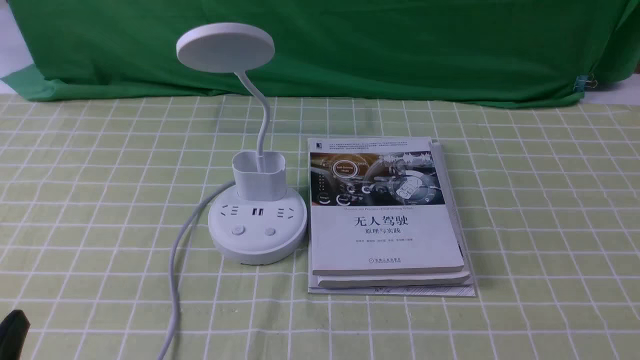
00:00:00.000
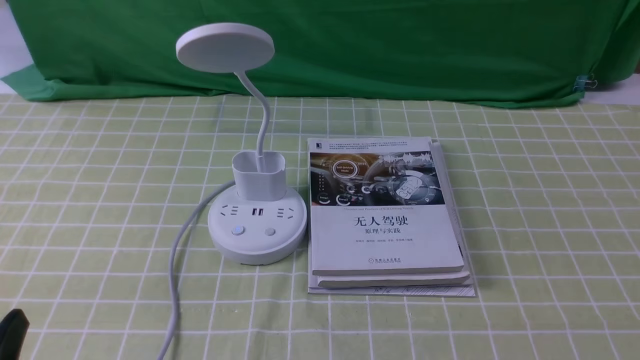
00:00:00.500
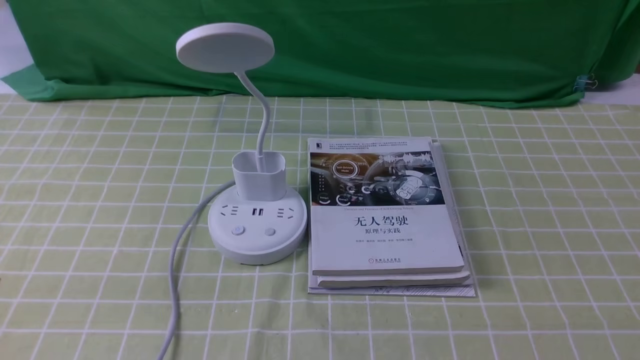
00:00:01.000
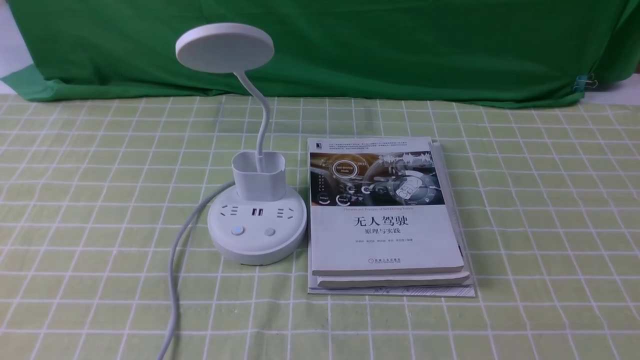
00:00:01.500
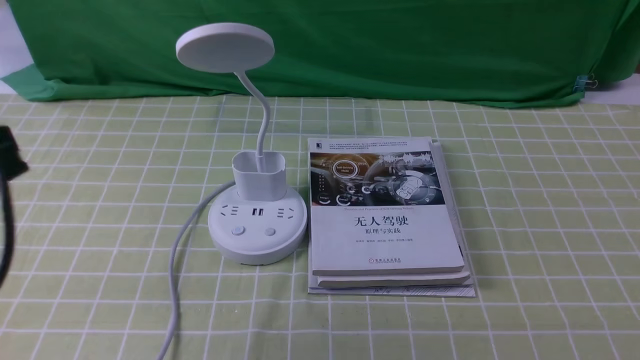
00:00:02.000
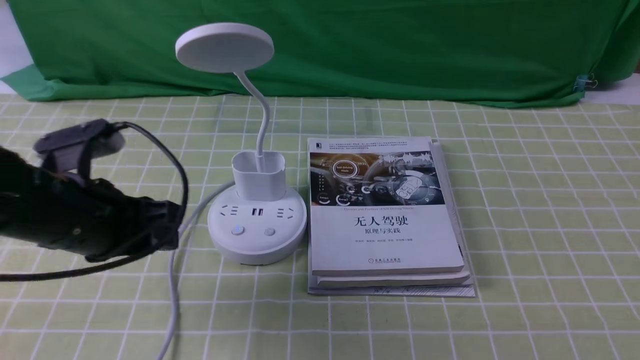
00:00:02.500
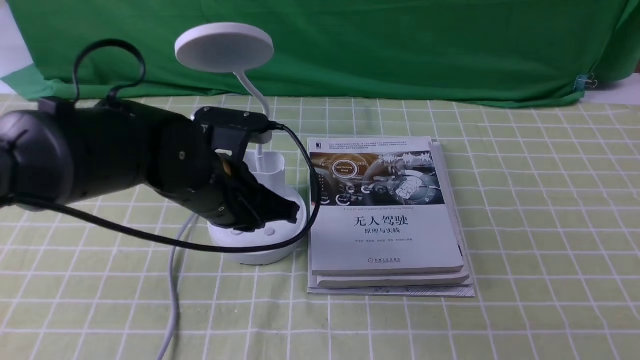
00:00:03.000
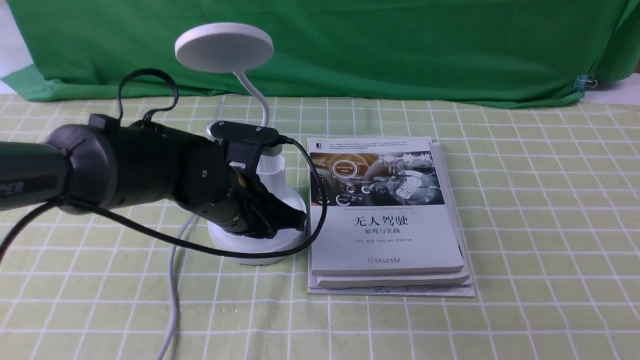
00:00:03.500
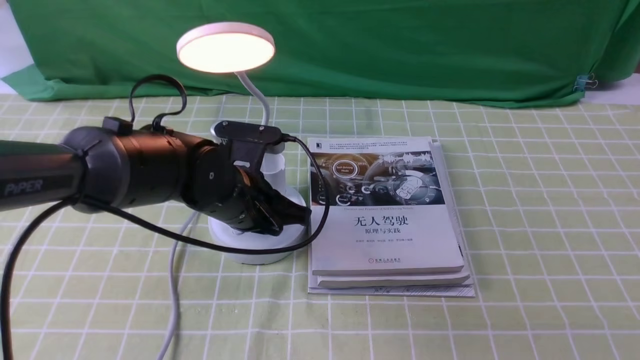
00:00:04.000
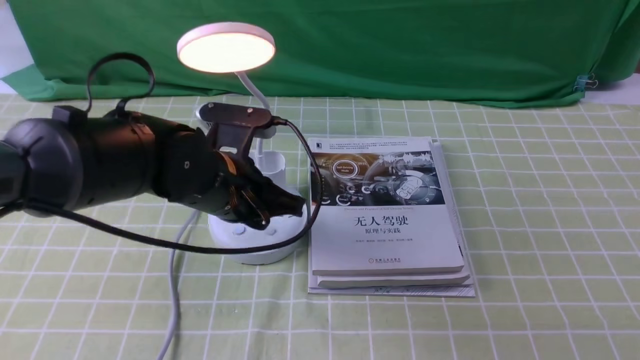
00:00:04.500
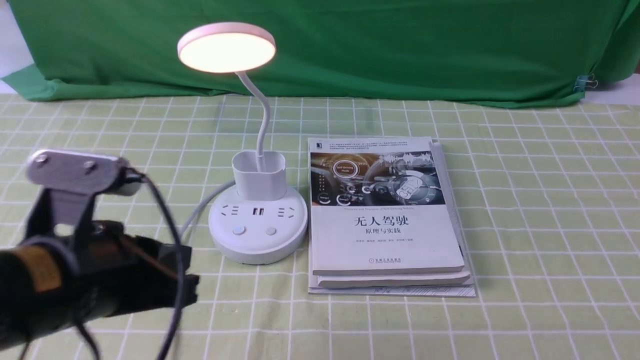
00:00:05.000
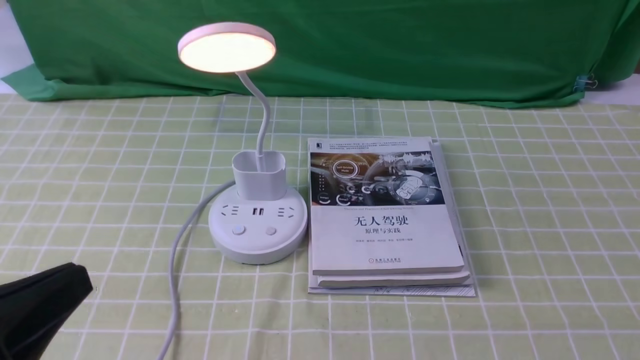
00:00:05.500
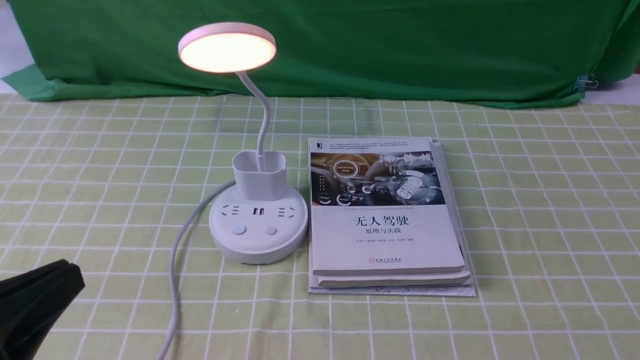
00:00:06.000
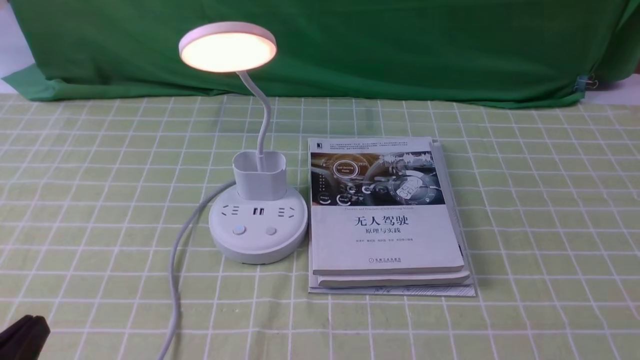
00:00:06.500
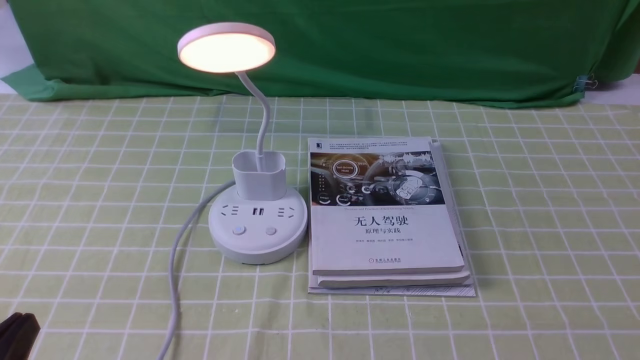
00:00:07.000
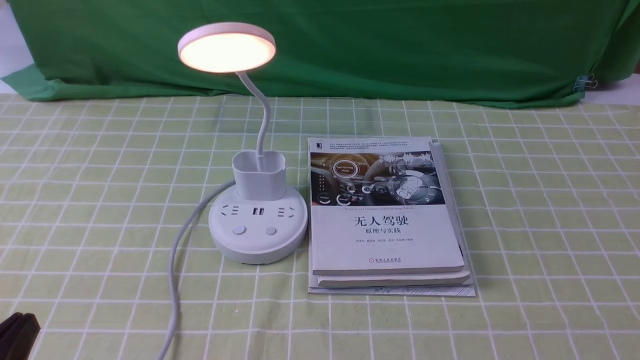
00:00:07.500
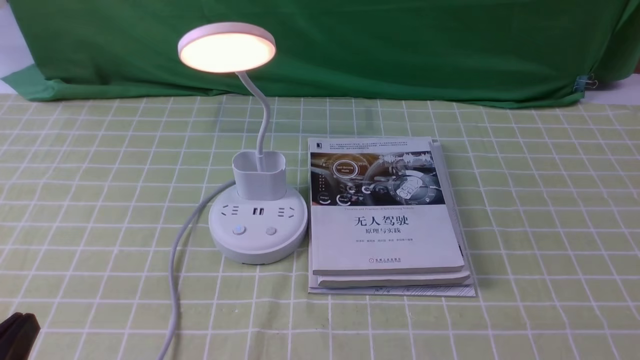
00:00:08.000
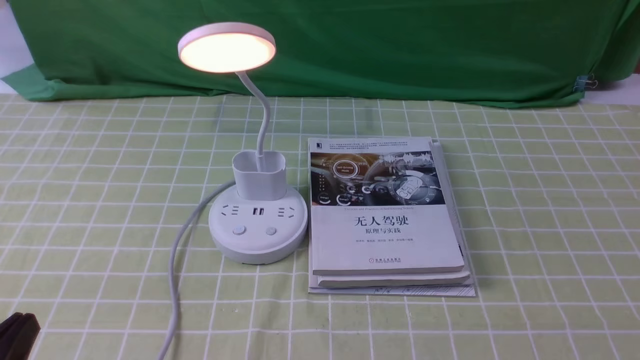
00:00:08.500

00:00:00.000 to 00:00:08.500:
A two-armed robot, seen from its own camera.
Step, 00:00:00.000 to 00:00:04.000: use the left arm to press the button switch on the lamp holder.
00:00:02.000 to 00:00:04.000: The left gripper is displaced forward, downward and to the right by approximately 30 cm, and closes.
00:00:04.000 to 00:00:06.500: The left gripper shifts some 30 cm backward and to the left.
